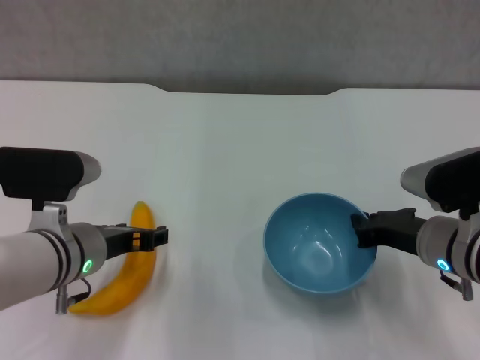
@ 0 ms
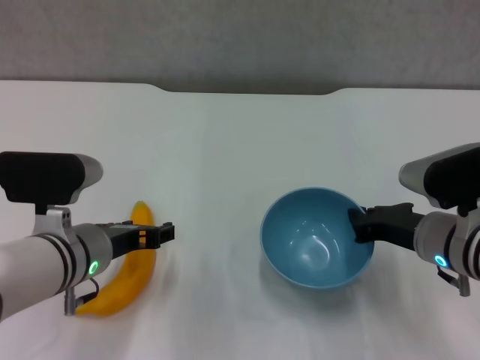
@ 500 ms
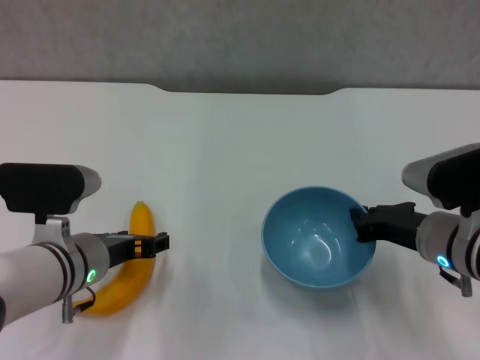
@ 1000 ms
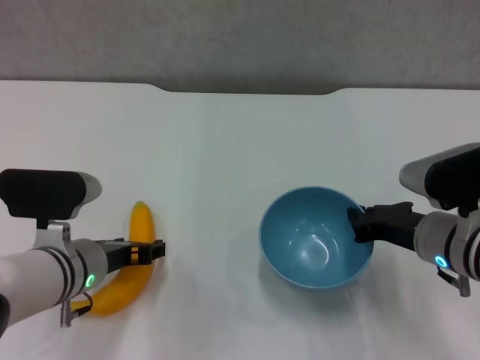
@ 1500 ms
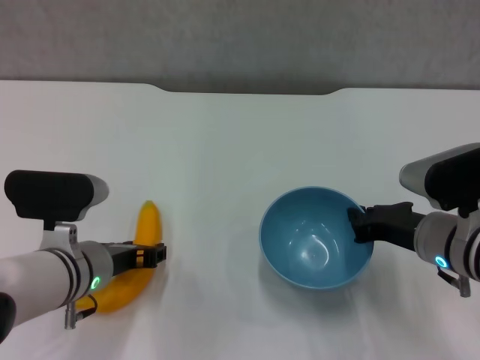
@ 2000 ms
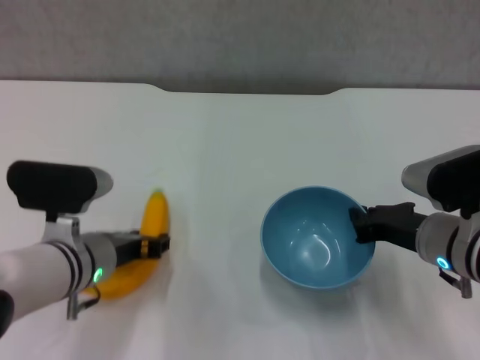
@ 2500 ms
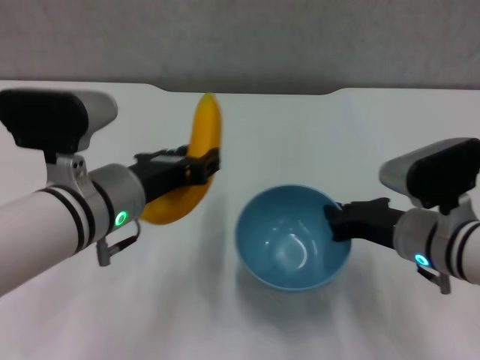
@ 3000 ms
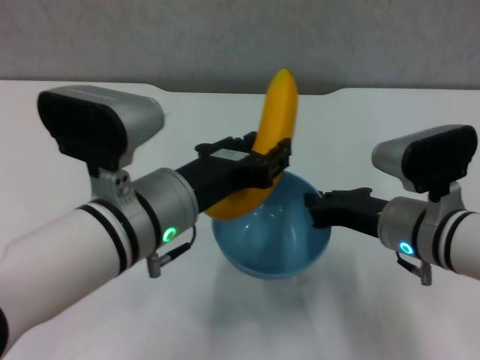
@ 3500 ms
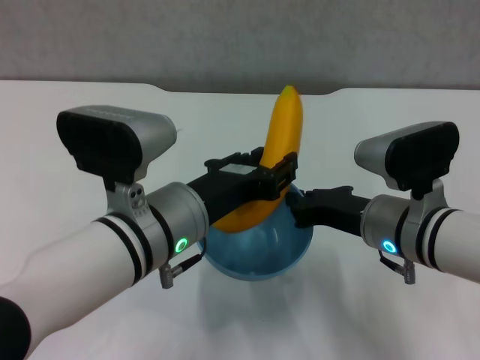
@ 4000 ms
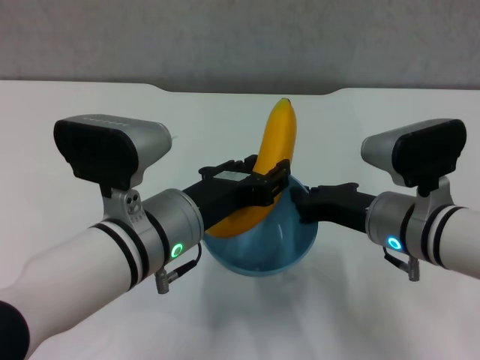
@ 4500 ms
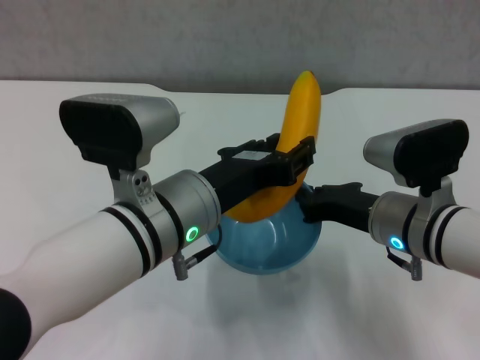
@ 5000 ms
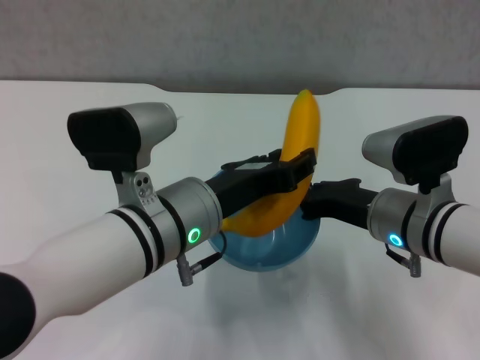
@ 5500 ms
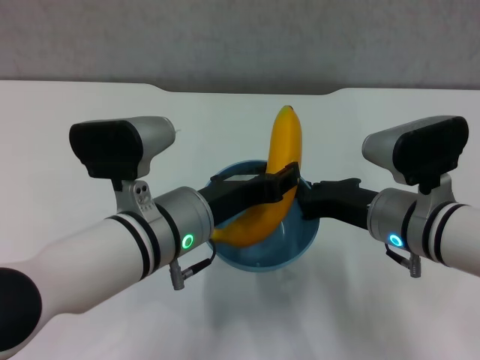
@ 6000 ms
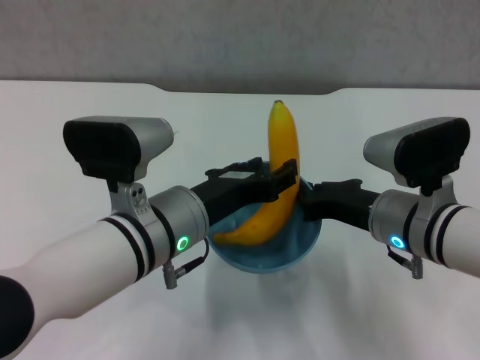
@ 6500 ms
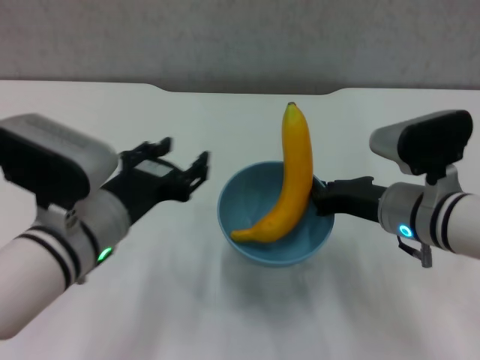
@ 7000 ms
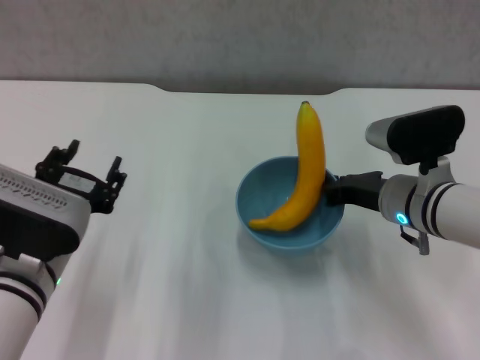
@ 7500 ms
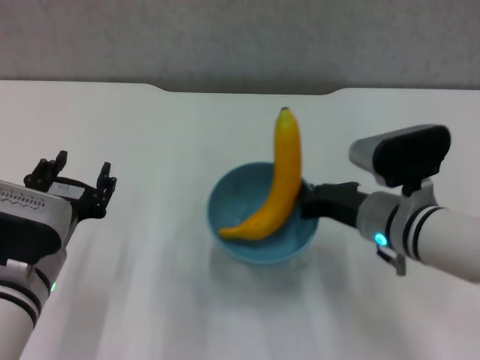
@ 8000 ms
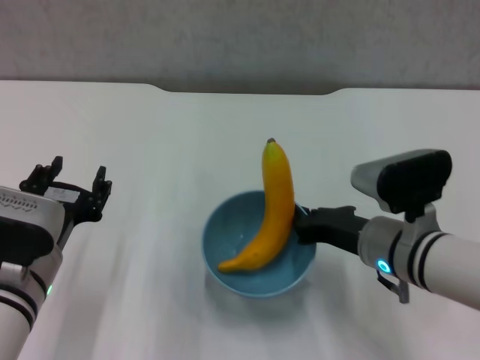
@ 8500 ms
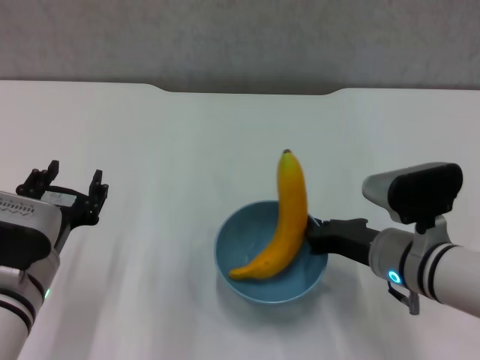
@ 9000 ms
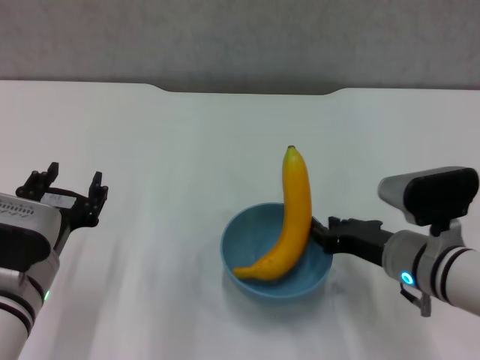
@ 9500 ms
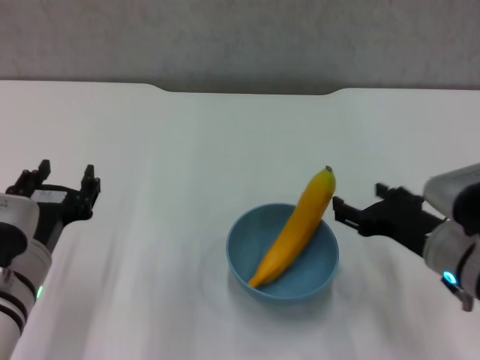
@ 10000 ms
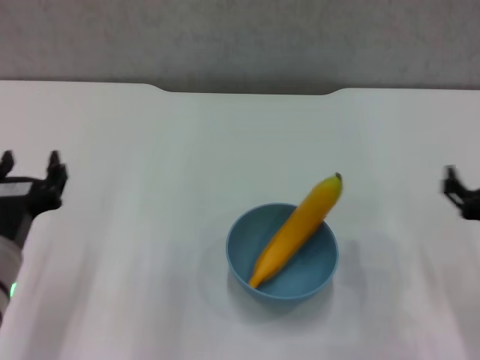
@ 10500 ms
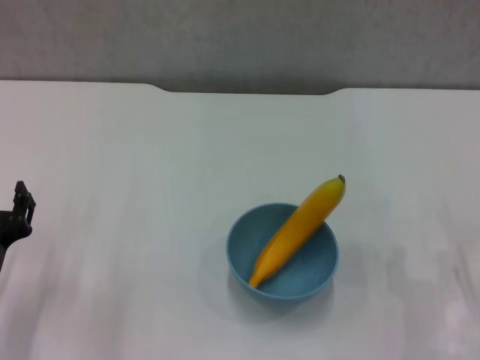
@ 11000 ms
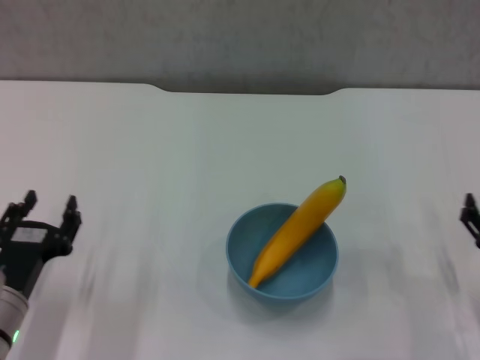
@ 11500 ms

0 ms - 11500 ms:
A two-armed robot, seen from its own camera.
Step, 0 ms - 2000 ms: Grasp the banana with left gripper.
Step, 2500 ms - 6500 ms: Place the banana in the blue bowl with left gripper.
Step, 7000 ms - 9500 ms: Place the bowl on the table with right gripper.
0 ms - 2000 ms: The grippers move only a little.
2000 ms - 4000 ms: The right gripper travels to the left by some 5 cm; the left gripper moves to the right and upward, some 10 cm, and closes up.
4000 ms - 6000 ms: The grippers make only small movements.
6000 ms - 7500 ms: The right gripper moves about 5 cm; the left gripper travels to the left by approximately 10 cm, and opens its fingers.
7500 ms - 9500 ms: The right gripper heads backward, covering roughly 5 cm.
9500 ms - 11500 ms: The right gripper moves to the right and backward, about 15 cm, and opens. The left gripper shifts approximately 5 cm downward.

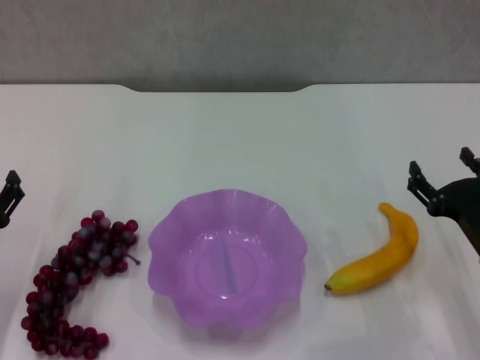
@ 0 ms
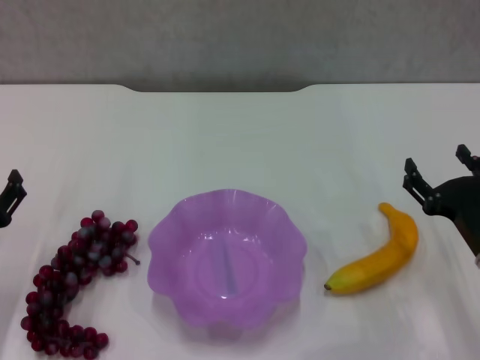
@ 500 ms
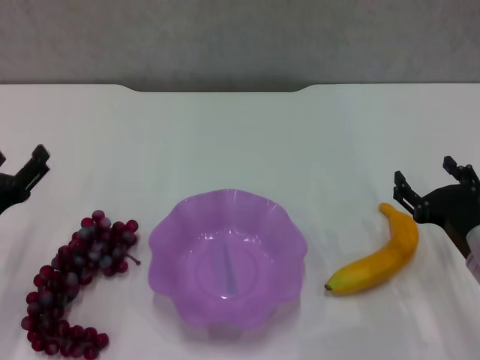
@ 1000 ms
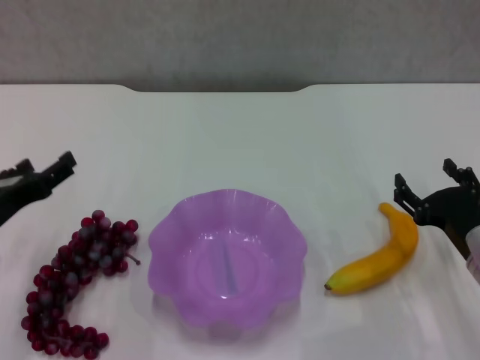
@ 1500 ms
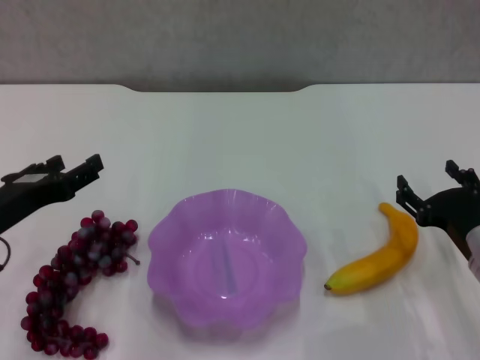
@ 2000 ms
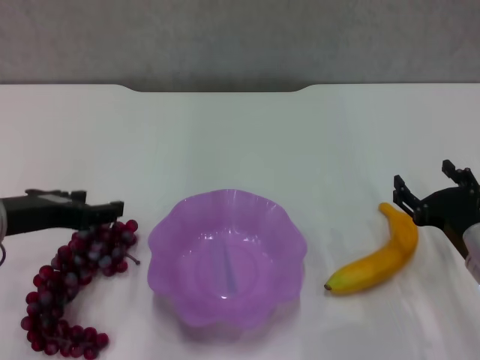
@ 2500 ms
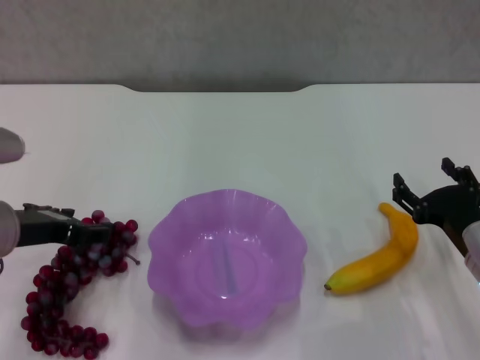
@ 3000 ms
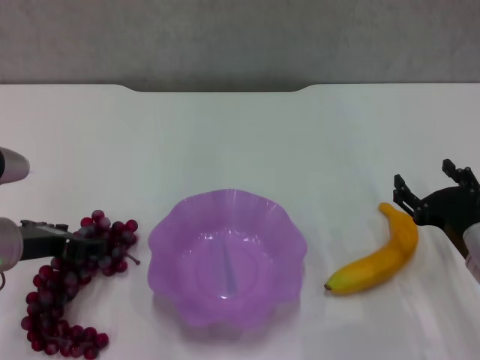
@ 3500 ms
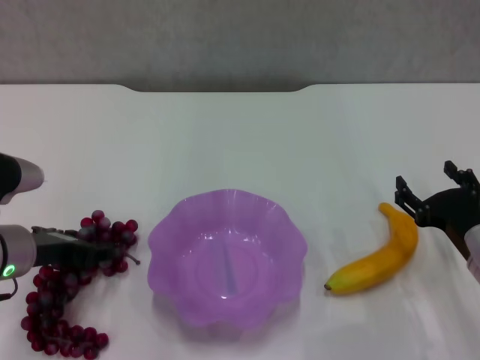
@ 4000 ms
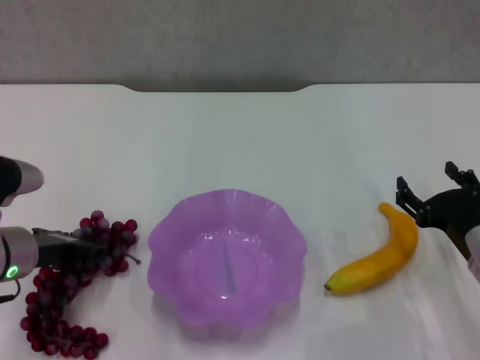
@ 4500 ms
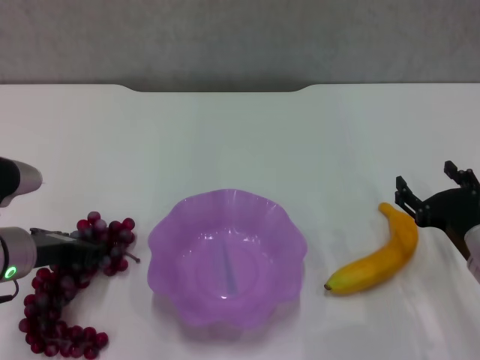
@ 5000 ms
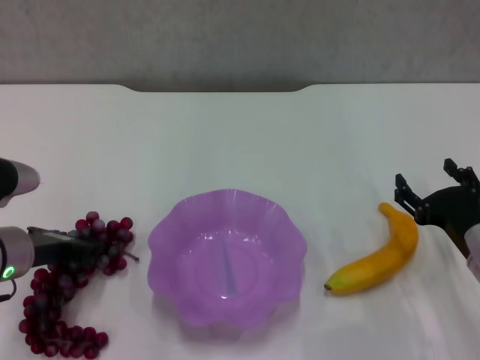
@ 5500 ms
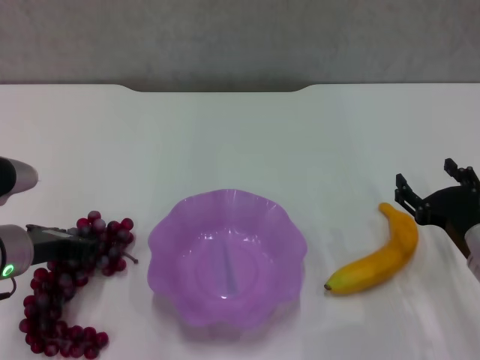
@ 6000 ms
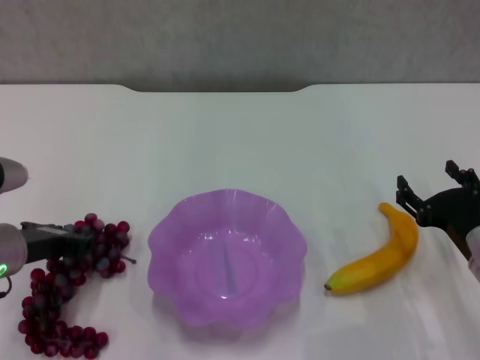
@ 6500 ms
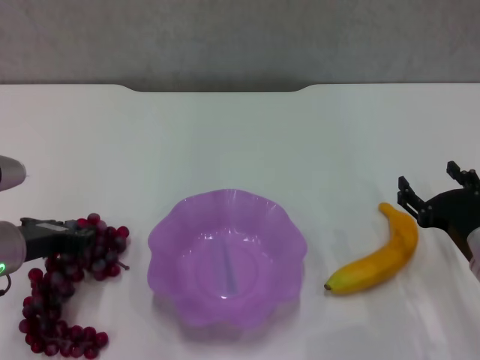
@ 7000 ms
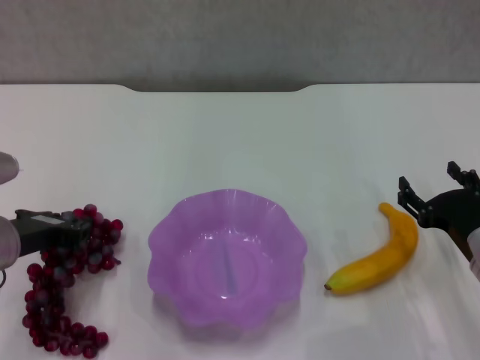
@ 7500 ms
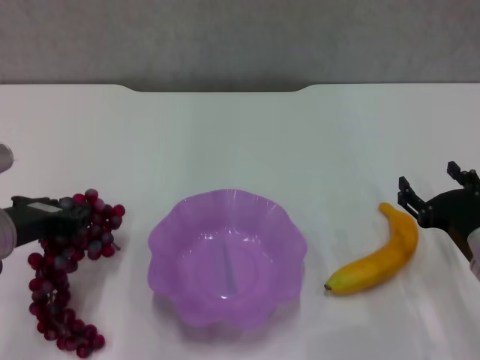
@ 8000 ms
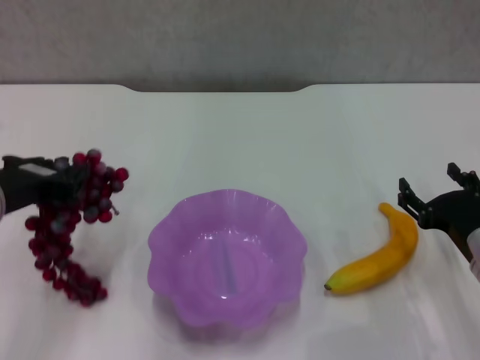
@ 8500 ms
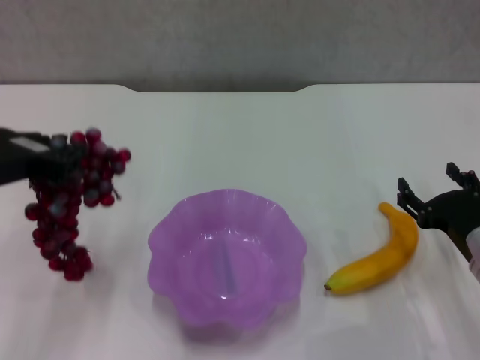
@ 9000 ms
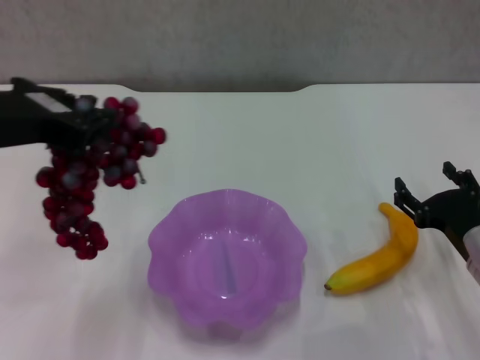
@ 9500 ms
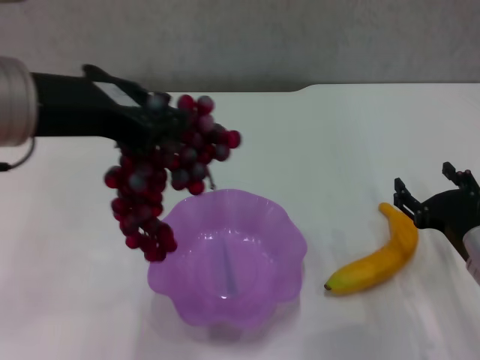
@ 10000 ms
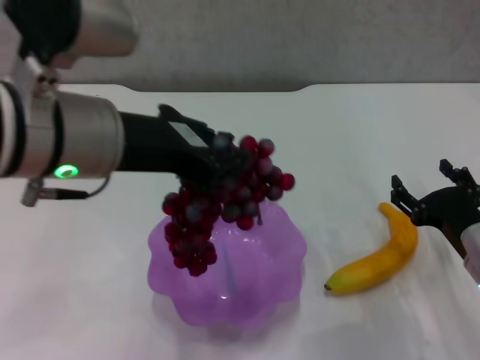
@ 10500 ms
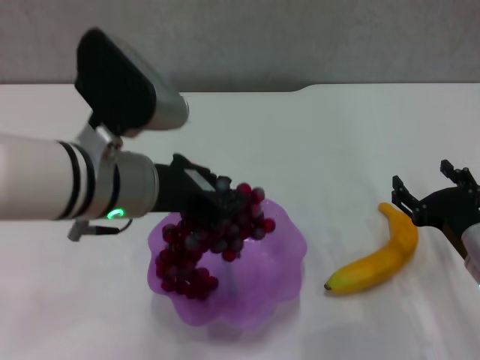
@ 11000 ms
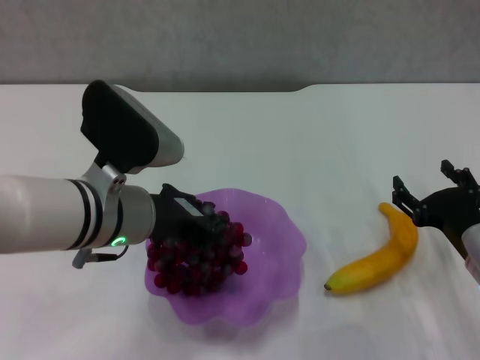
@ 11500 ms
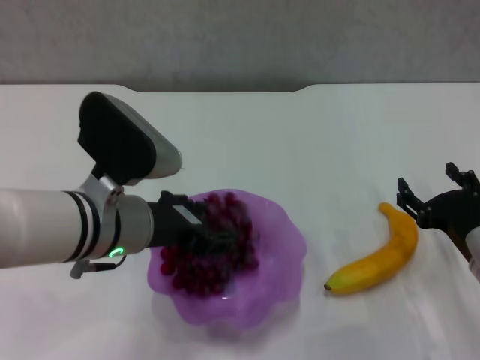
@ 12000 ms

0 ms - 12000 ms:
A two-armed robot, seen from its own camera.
Step, 0 ms - 6000 ms: Grasp the grape with left gripper.
0 ms - 2000 ms: The left gripper shifts roughly 10 cm upward.
2000 ms - 4000 ms: The left gripper ends up about 5 cm from where it was.
4000 ms - 6000 ms: The left gripper closes.
6000 ms - 8000 ms: The grippers move only a little.
8000 ms - 10000 ms: The left gripper shifts roughly 20 cm upward and to the right.
10000 ms - 12000 ms: The left gripper shifts some 15 cm downward.

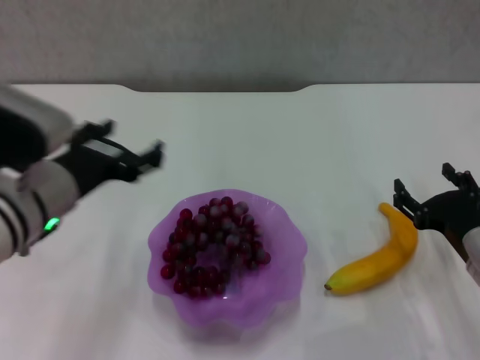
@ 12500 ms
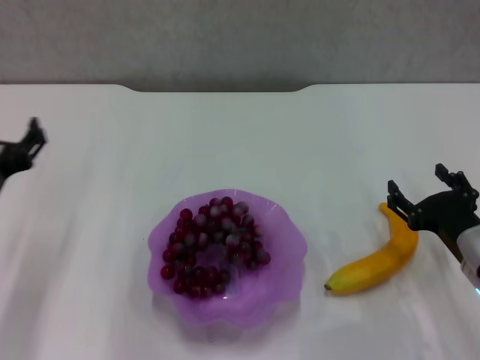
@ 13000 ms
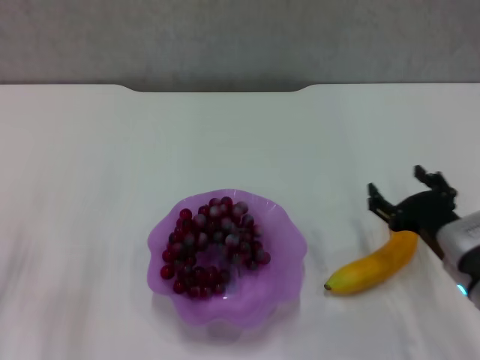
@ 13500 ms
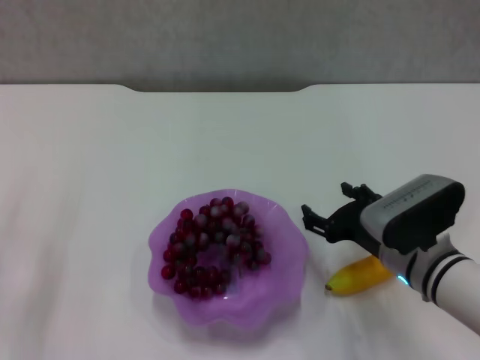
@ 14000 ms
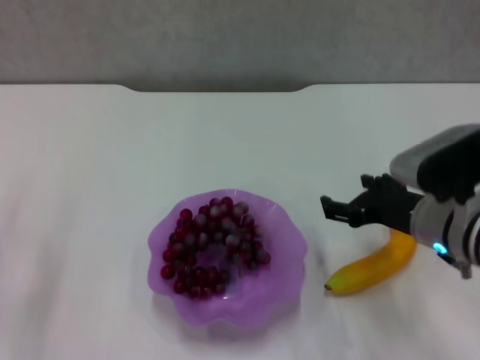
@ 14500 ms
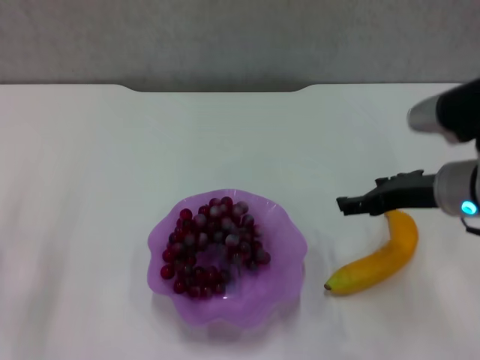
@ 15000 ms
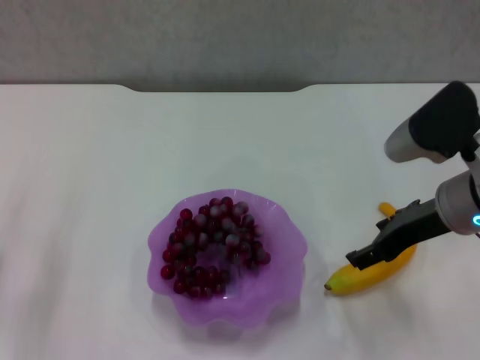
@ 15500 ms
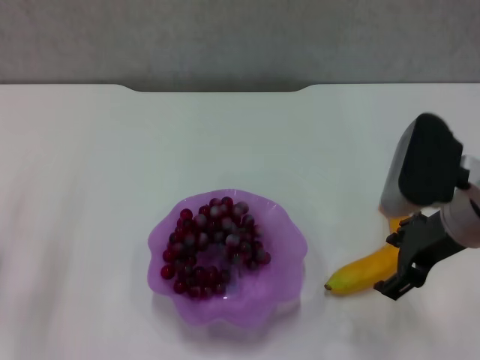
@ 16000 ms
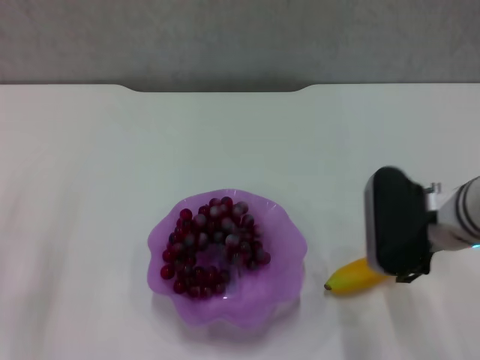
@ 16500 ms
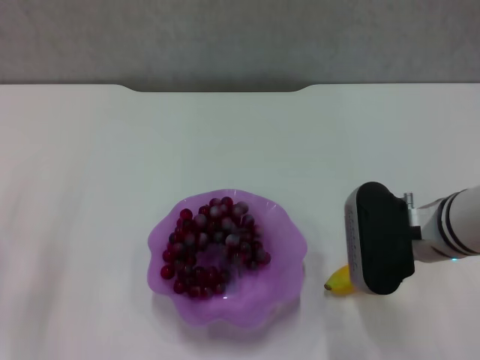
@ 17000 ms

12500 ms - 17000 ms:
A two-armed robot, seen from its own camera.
12500 ms - 14500 ms: The left gripper moves to the left and downward, about 20 cm, while the right gripper is displaced upward and to the left by approximately 10 cm.
